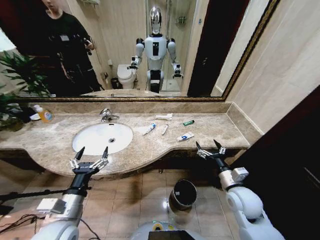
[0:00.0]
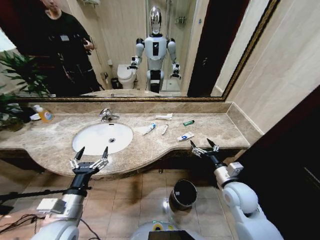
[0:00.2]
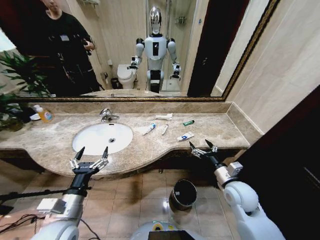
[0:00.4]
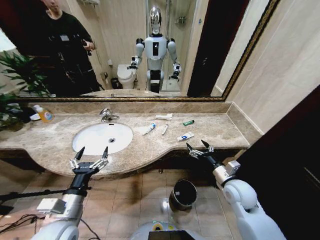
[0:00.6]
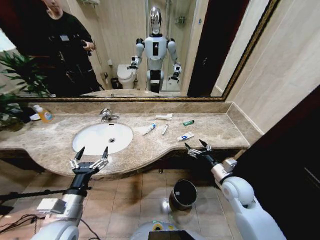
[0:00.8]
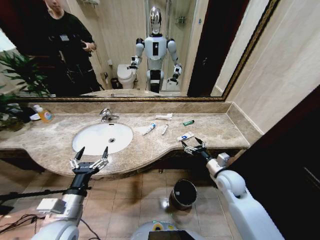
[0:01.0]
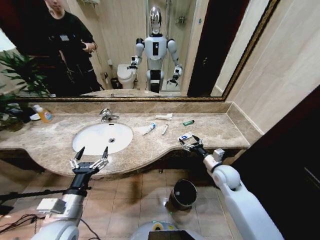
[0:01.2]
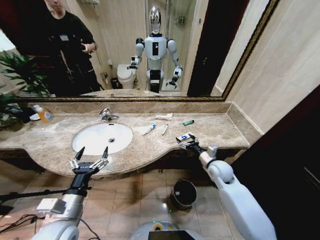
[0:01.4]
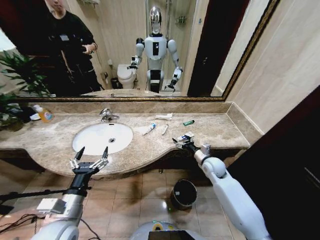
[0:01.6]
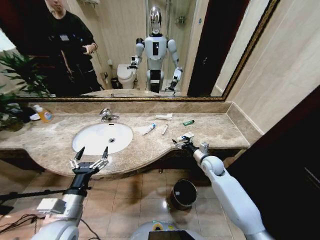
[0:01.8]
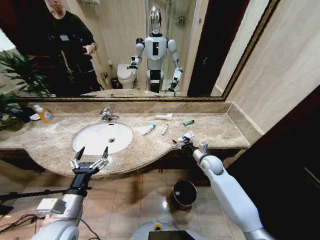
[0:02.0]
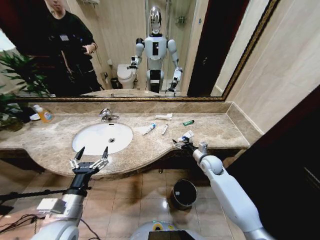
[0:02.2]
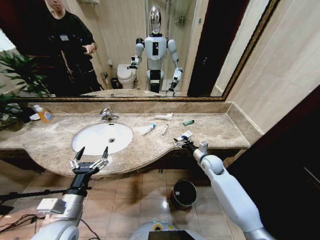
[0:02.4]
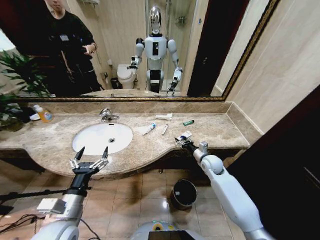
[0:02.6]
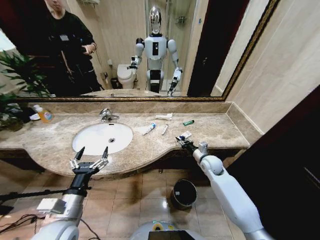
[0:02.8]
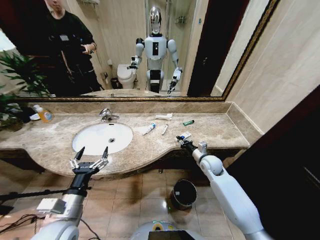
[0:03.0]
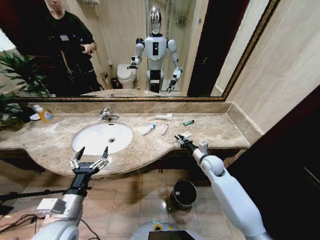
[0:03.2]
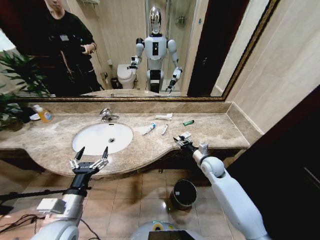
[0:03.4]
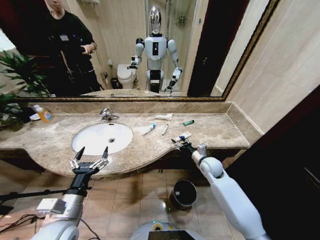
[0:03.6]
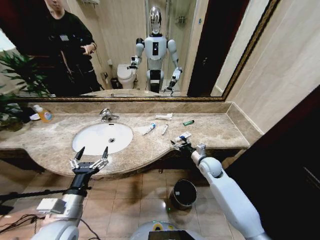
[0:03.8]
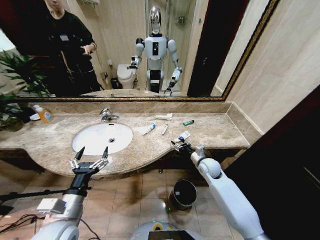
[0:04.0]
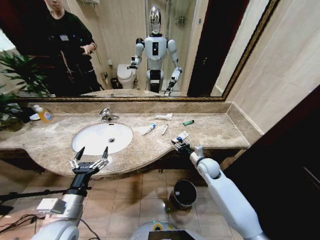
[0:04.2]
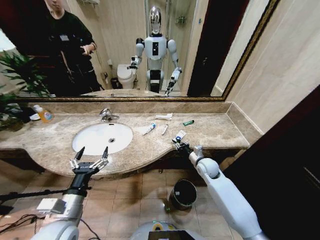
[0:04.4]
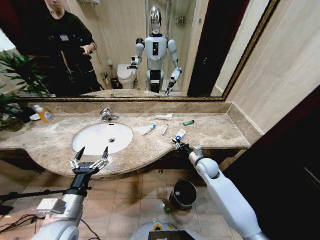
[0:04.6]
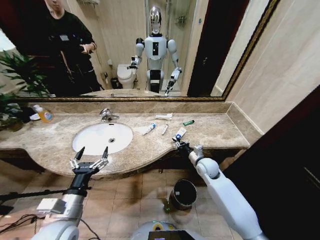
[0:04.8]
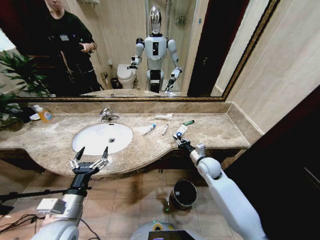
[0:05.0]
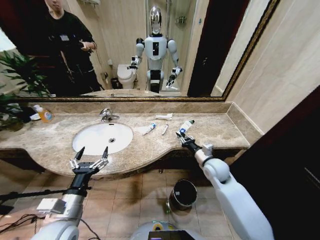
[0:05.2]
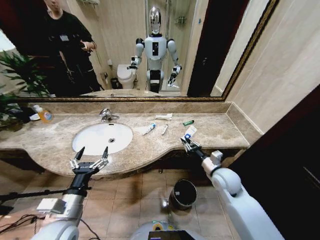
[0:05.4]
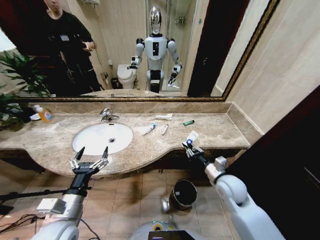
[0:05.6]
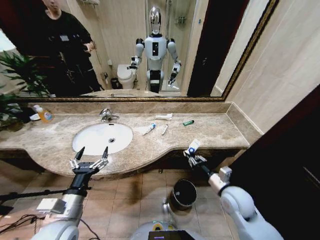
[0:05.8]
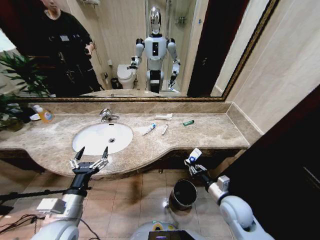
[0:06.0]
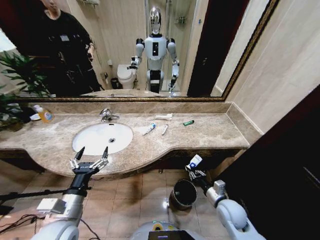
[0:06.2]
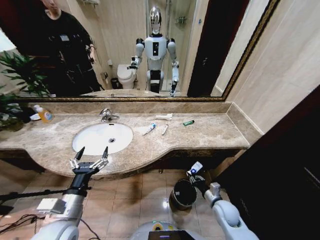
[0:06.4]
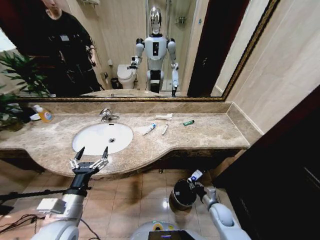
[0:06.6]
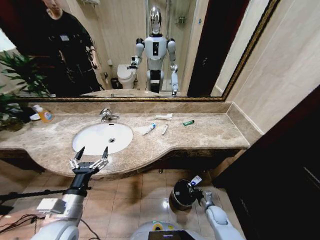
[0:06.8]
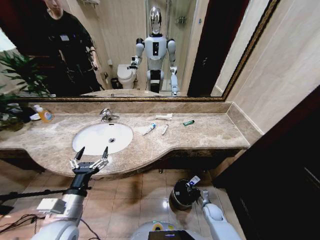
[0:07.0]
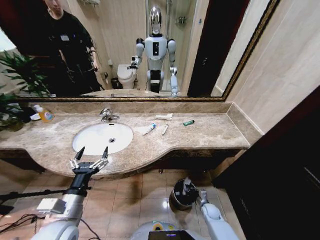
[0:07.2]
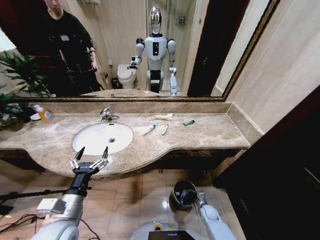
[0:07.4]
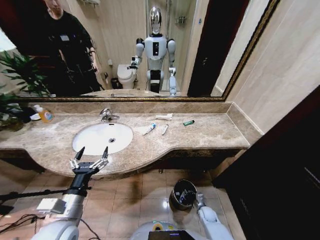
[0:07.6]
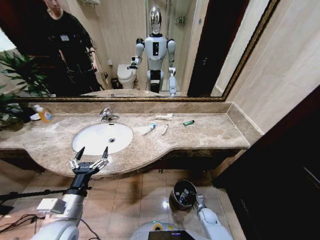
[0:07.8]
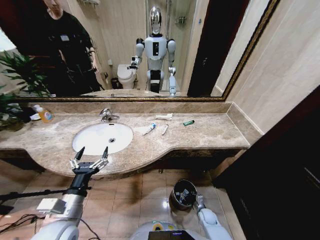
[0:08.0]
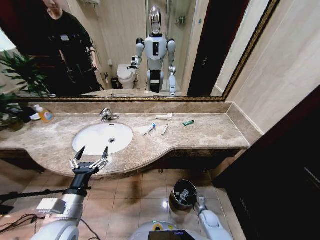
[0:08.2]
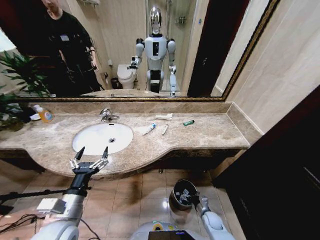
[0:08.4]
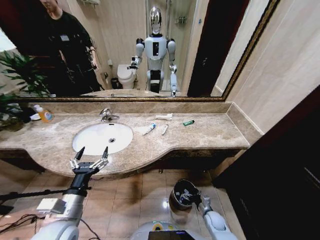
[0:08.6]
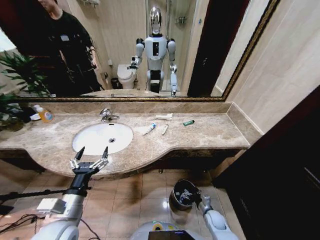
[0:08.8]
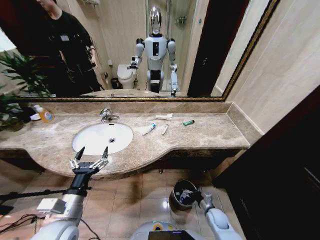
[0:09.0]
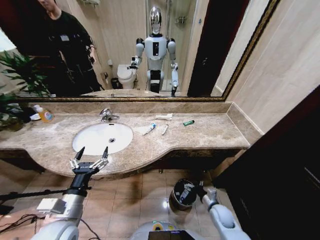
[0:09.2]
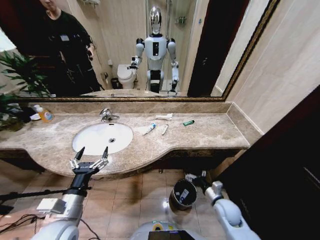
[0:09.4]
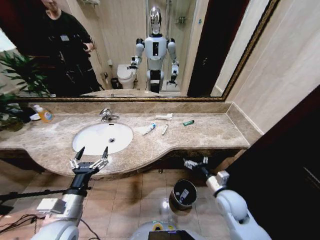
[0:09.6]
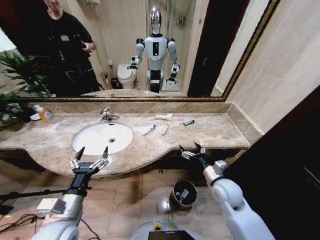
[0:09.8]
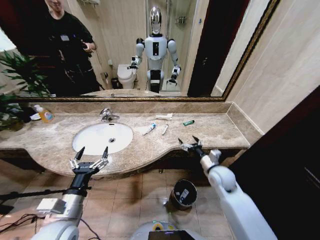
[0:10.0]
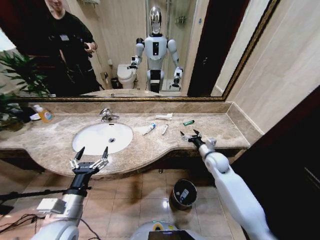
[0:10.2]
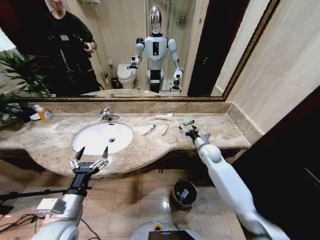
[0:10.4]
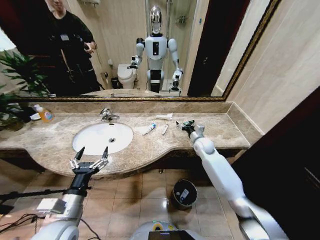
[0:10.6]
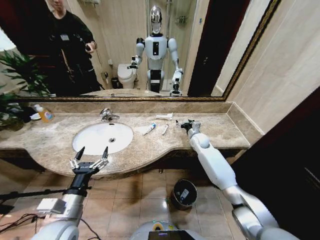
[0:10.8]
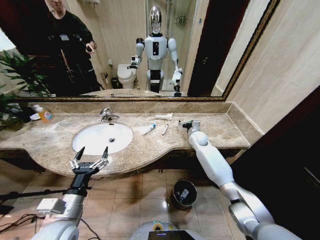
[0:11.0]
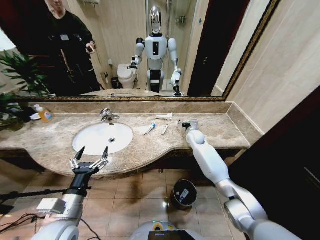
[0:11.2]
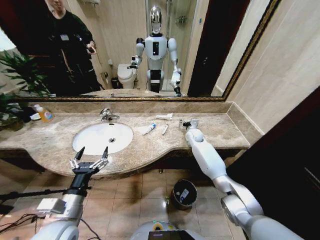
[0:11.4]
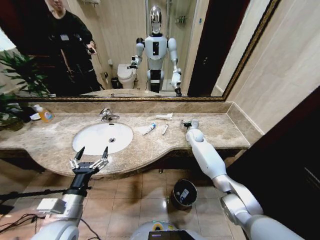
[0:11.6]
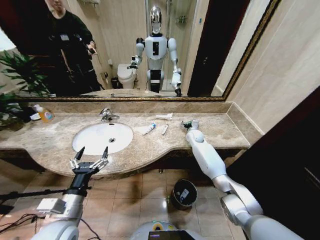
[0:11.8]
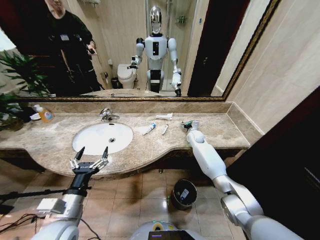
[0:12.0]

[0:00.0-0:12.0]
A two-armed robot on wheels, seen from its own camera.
Task of the whole recording: Pick up the trash from the sink and place it in the trash bin.
0:01.6 to 0:03.0: The right gripper closes.
0:03.0 to 0:04.4: The right gripper opens, then closes again.
0:04.4 to 0:06.0: The right gripper moves backward, some 20 cm.
0:06.0 to 0:07.6: The right gripper is displaced downward by approximately 30 cm.
0:07.6 to 0:09.0: The right gripper moves upward, some 5 cm, and opens up.
0:09.0 to 0:10.4: The right gripper travels upward and forward by about 35 cm.
0:10.4 to 0:12.0: The right gripper heads forward, covering approximately 15 cm.

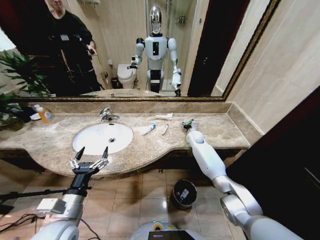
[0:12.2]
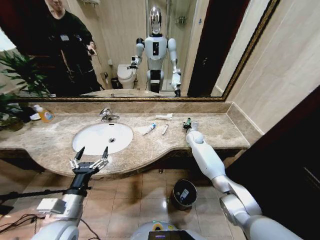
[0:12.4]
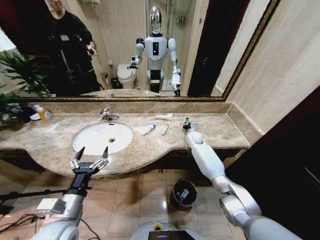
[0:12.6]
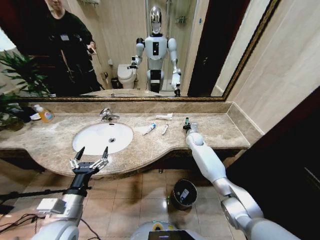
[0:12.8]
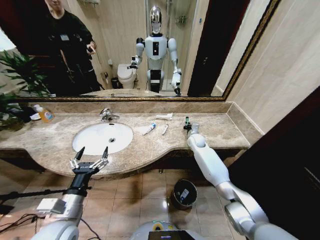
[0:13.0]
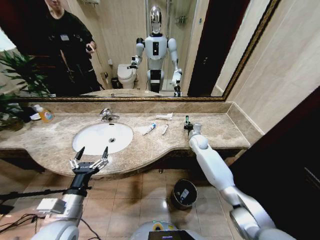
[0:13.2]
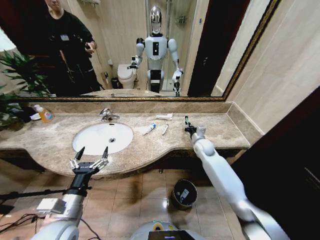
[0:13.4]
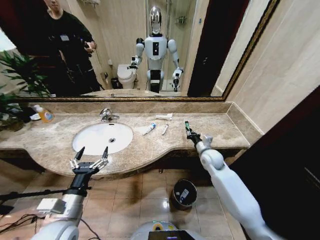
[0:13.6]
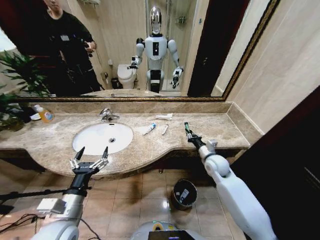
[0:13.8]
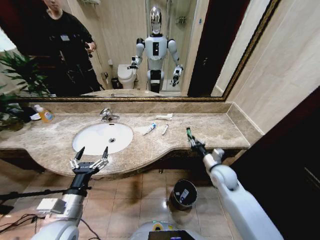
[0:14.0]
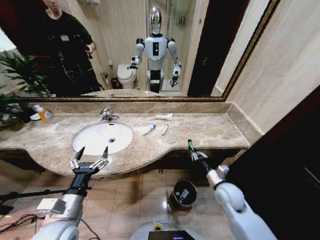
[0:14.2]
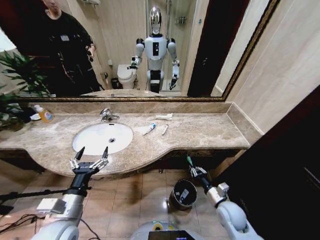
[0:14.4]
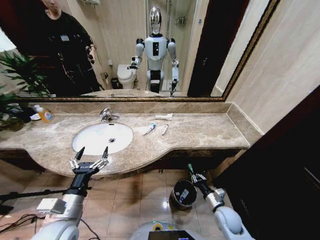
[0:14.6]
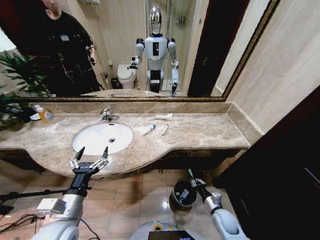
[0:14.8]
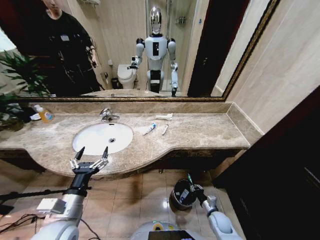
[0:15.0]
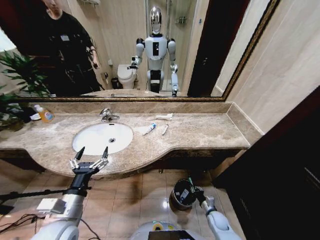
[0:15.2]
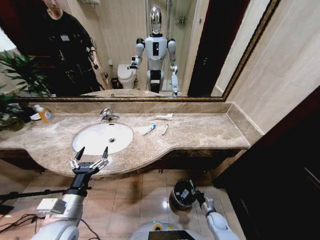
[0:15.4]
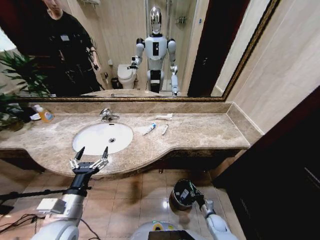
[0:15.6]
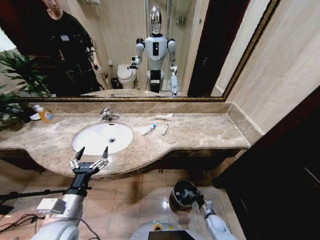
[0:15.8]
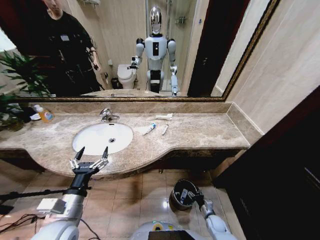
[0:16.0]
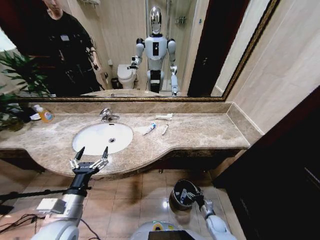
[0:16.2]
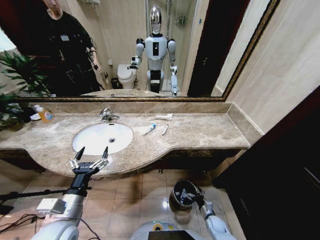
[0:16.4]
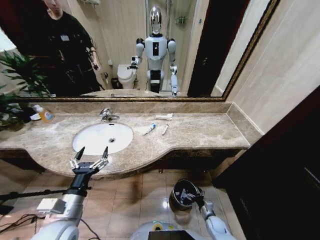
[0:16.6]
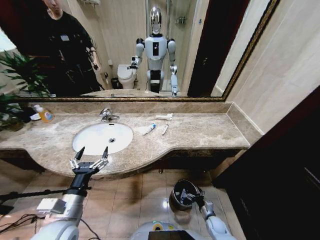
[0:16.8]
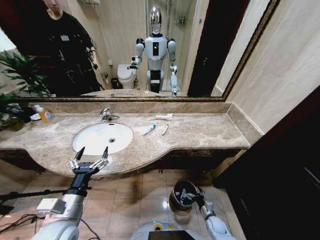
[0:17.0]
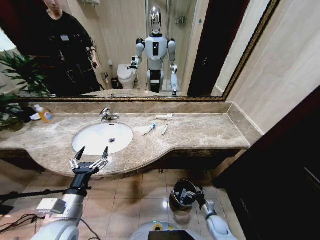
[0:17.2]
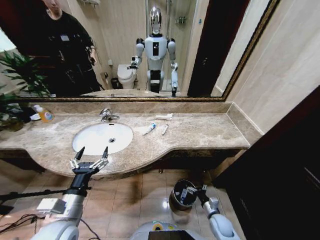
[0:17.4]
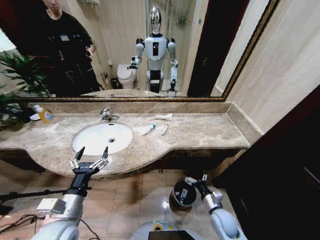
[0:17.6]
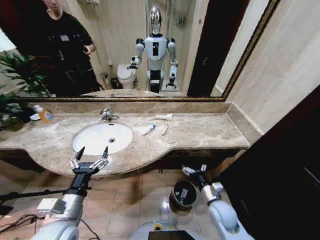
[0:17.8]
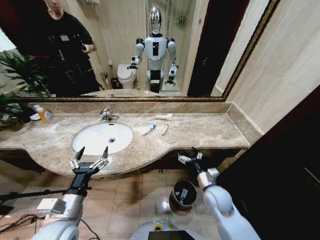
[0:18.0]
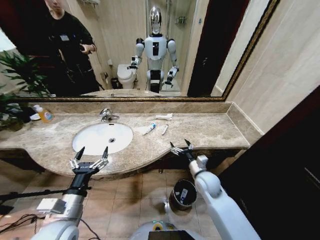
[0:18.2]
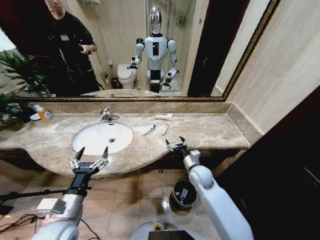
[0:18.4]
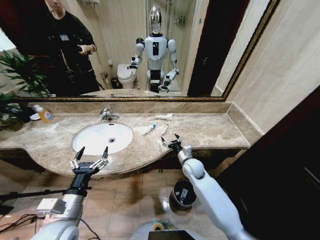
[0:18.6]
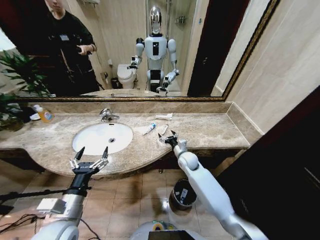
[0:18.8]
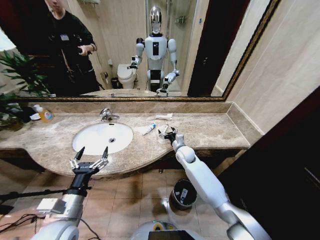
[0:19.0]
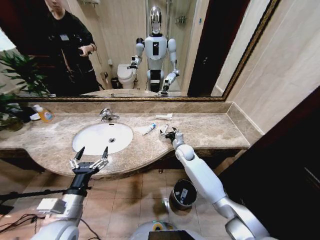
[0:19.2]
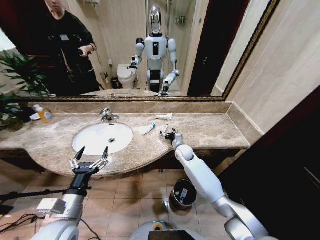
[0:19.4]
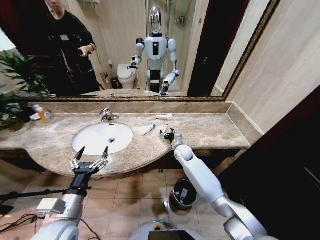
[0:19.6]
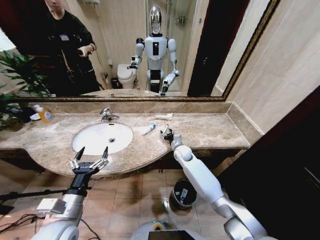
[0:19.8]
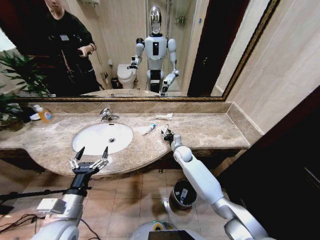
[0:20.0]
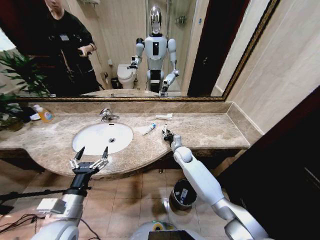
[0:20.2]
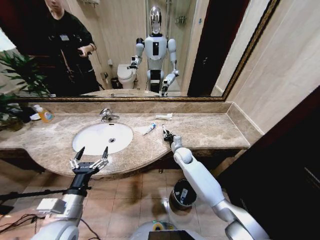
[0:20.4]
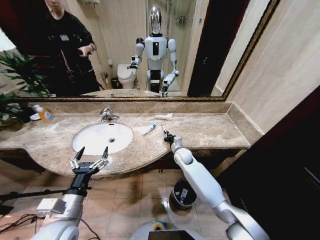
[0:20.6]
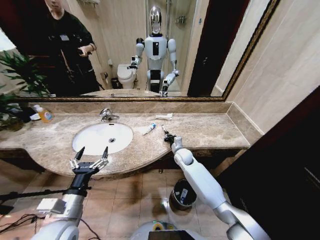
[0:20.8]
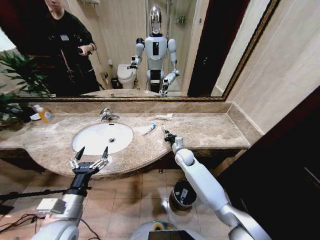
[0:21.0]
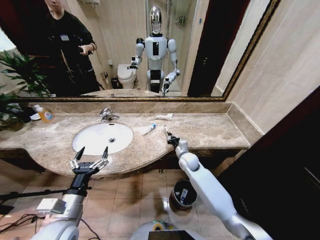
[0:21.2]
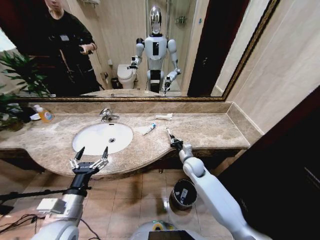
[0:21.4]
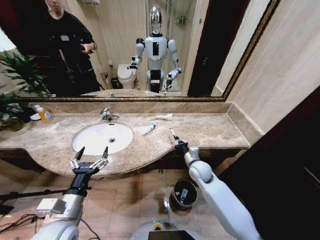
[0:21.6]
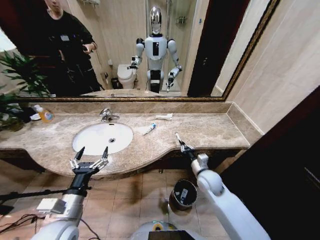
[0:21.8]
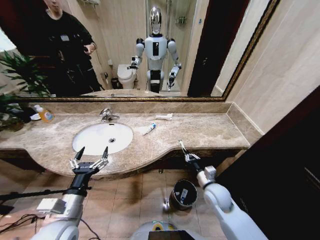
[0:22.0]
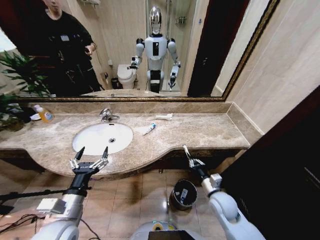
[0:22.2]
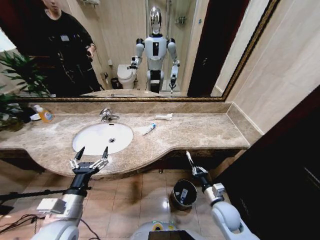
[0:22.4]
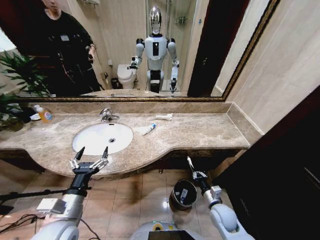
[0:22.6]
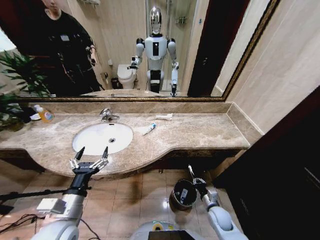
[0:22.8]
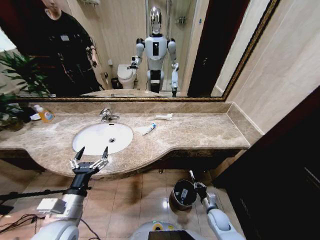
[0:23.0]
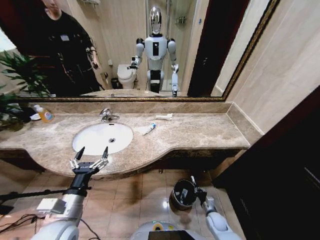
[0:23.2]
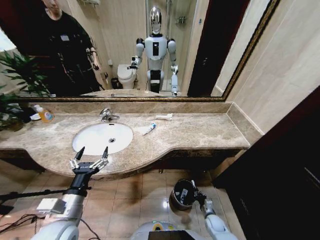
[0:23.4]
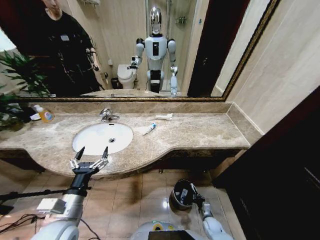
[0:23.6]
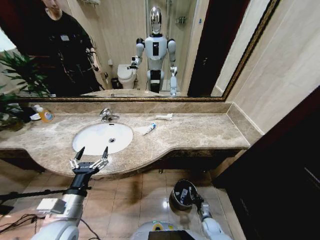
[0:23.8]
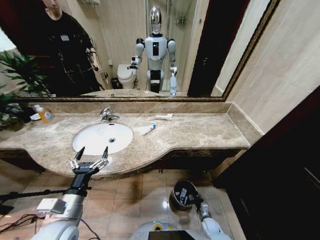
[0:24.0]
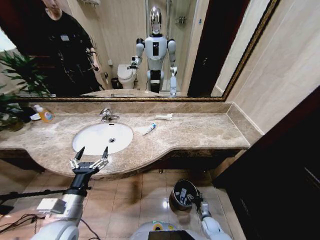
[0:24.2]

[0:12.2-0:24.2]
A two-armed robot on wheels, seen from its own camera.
Task of the whole recording: Pick up the trash from the sink and place it in the trash bin.
0:12.2 to 0:13.8: The right gripper moves backward, approximately 20 cm, and closes up.
0:13.8 to 0:15.2: The right gripper heads downward and backward, covering approximately 35 cm.
0:15.2 to 0:16.6: The right gripper opens.
0:16.6 to 0:18.2: The right gripper is displaced upward by some 30 cm.
0:18.2 to 0:19.8: The right gripper goes about 15 cm forward.
0:19.8 to 0:21.2: The right gripper shifts about 5 cm backward, and closes up.
0:21.2 to 0:22.6: The right gripper travels backward, to the right and downward by some 25 cm.
0:22.6 to 0:24.2: The right gripper heads downward, covering some 20 cm, and opens.
